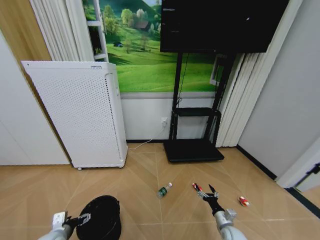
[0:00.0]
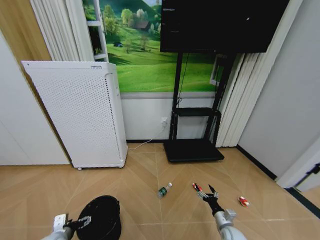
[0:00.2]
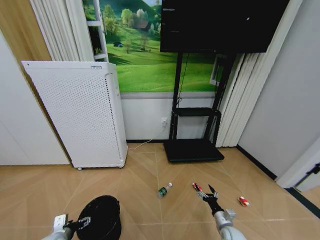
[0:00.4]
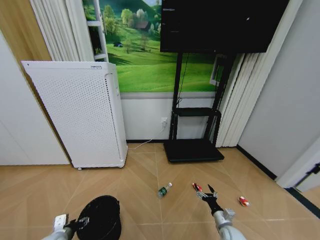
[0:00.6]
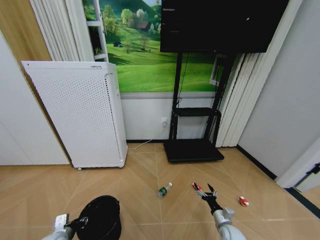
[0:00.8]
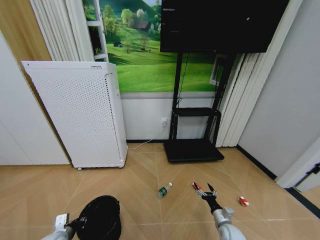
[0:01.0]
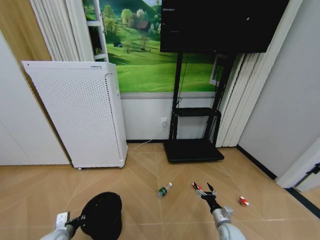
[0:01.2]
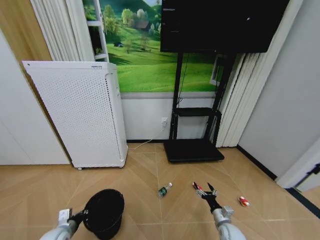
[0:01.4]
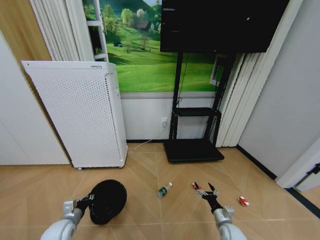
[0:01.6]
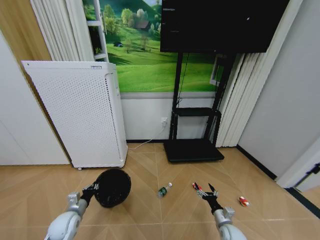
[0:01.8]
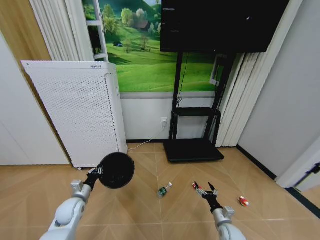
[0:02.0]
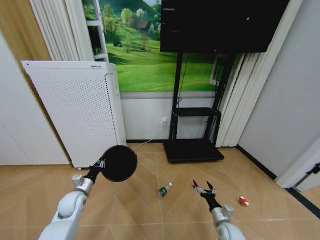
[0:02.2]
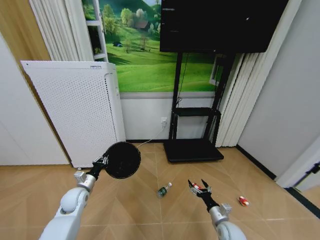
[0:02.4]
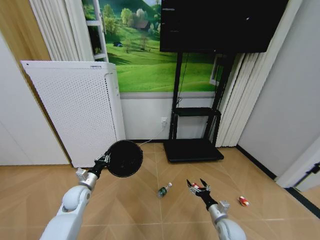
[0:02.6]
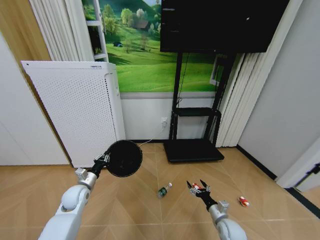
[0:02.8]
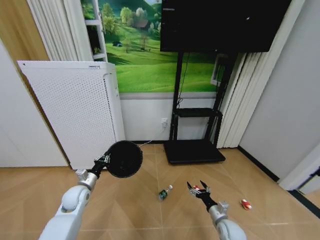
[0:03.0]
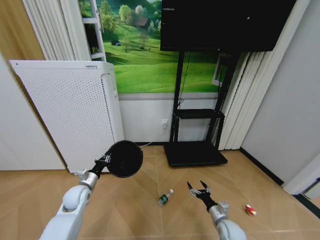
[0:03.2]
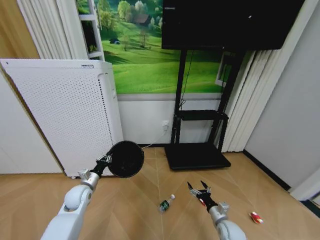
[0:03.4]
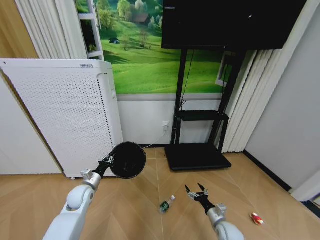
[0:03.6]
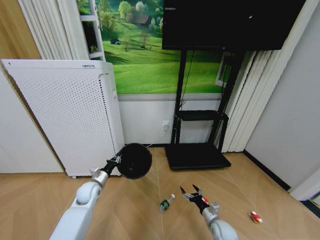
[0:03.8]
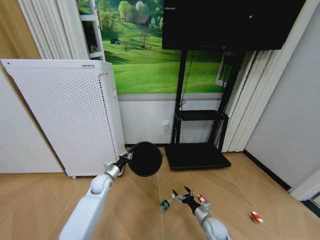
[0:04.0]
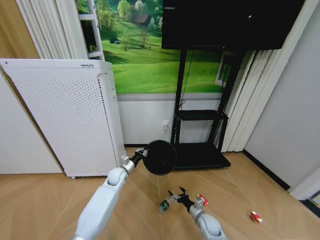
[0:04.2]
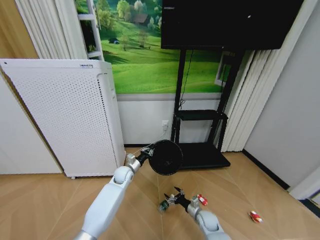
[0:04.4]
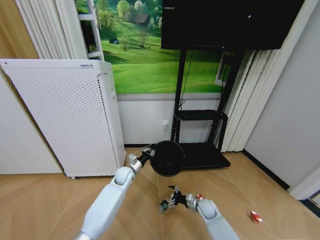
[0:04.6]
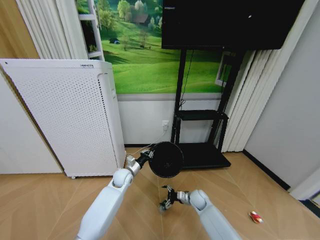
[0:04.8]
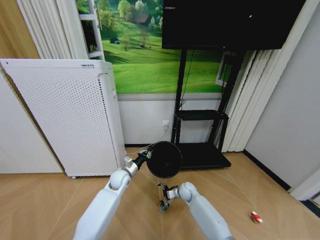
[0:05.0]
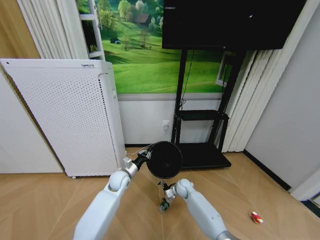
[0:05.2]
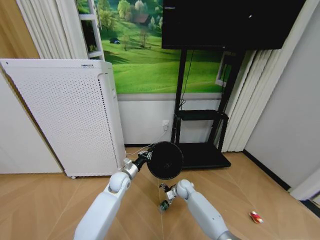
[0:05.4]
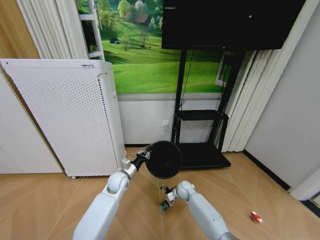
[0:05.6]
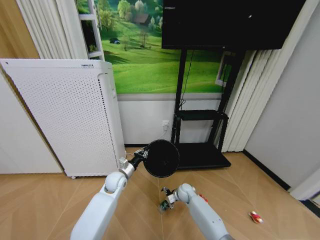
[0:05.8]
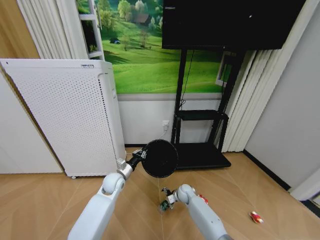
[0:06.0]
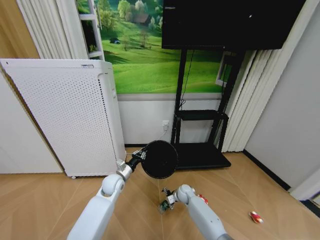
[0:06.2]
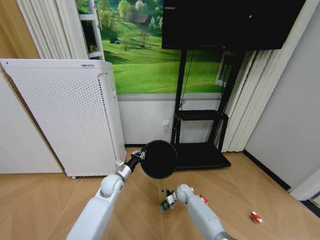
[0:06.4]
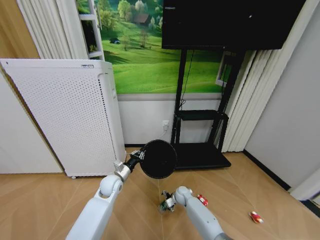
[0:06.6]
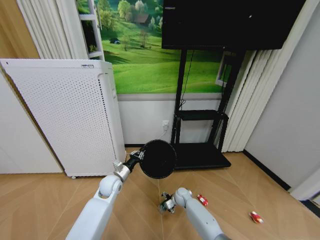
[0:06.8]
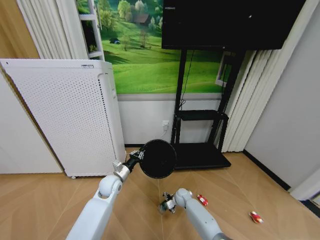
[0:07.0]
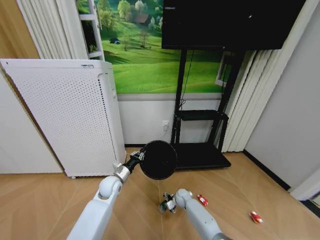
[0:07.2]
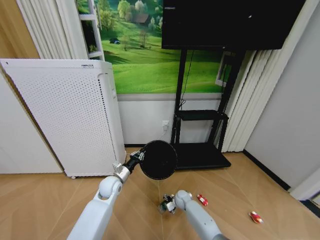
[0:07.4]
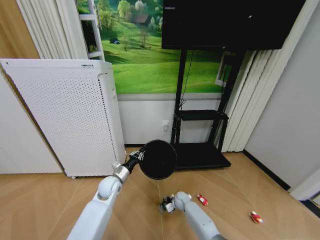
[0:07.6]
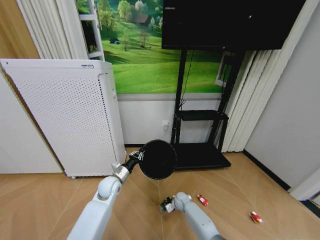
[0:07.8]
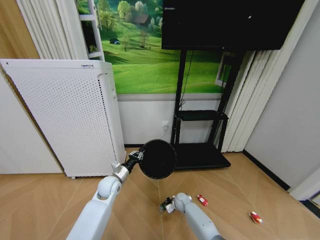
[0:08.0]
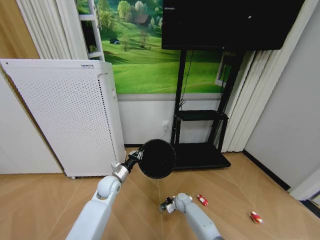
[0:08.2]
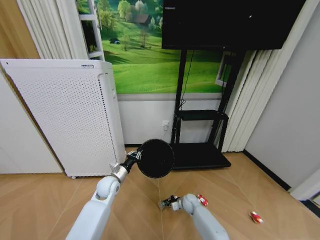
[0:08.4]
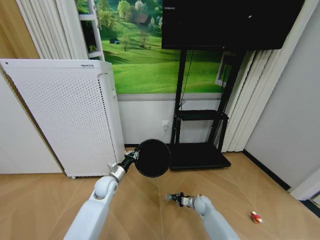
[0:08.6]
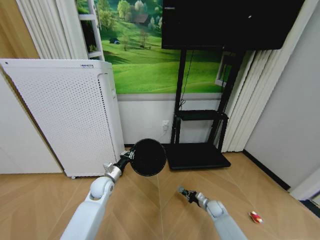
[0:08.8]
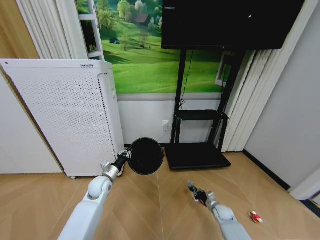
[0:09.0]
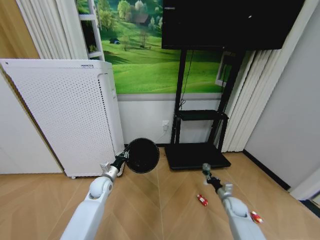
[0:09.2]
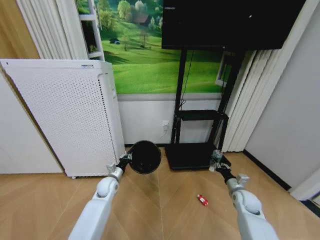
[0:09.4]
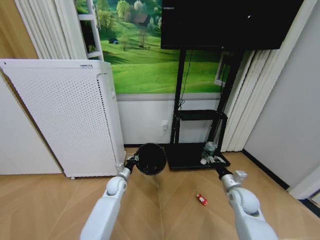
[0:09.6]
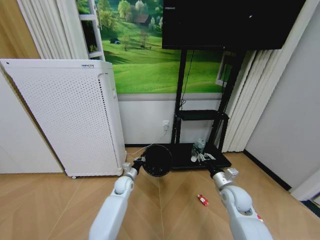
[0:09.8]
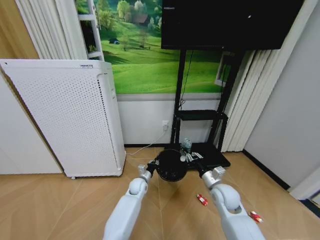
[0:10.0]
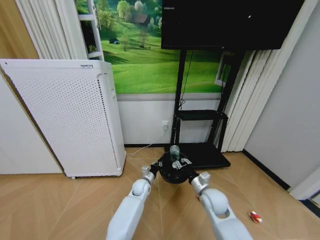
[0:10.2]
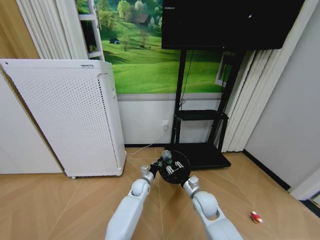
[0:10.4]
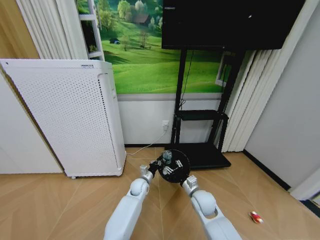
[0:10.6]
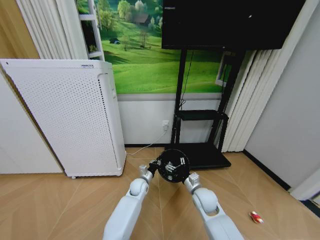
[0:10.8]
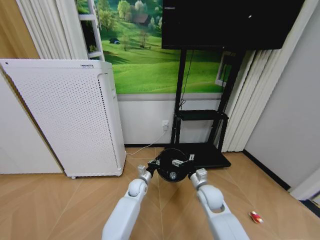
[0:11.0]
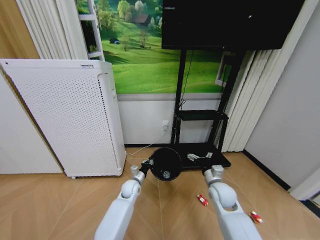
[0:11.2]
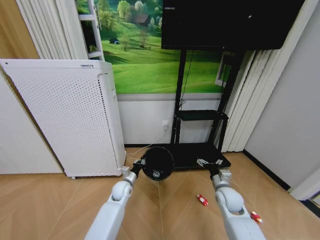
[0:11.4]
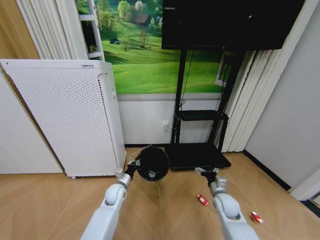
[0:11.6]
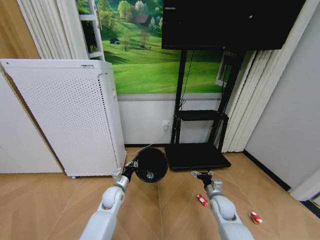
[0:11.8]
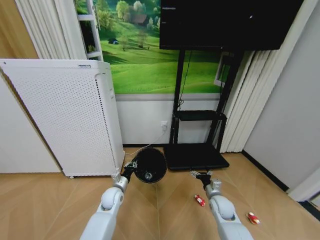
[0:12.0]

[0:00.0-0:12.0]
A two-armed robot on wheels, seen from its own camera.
Task of the whole recording: Pick up the trash bin and place the garbage on the floor into it.
0:00.0 to 0:01.6: The left gripper ends up about 5 cm from where it was, and closes.
0:01.6 to 0:03.0: The left gripper heads forward and upward, covering approximately 15 cm.
0:03.0 to 0:04.4: The right gripper travels downward, to the left and forward by about 10 cm. Meanwhile the left gripper heads to the right and forward, covering approximately 20 cm.
0:04.4 to 0:06.0: The right gripper goes about 15 cm forward and to the left; the left gripper travels backward by some 5 cm.
0:06.0 to 0:07.6: The right gripper goes approximately 5 cm downward.
0:07.6 to 0:09.0: The right gripper goes roughly 20 cm to the right, and closes.
0:09.0 to 0:10.4: The right gripper is displaced upward and to the left by some 25 cm. The left gripper travels to the right and downward by approximately 20 cm.
0:10.4 to 0:12.0: The left gripper heads to the left and backward, covering roughly 15 cm, while the right gripper is displaced to the right and downward by approximately 10 cm, and opens.

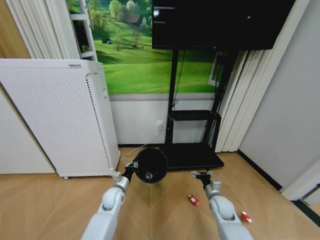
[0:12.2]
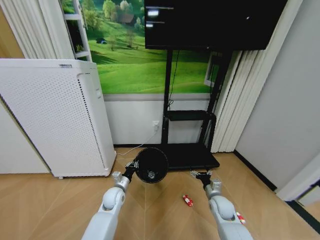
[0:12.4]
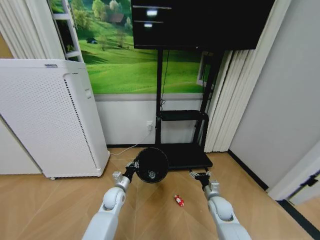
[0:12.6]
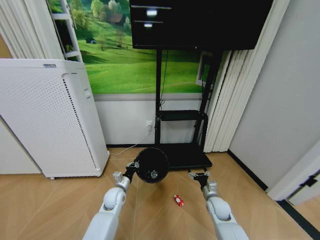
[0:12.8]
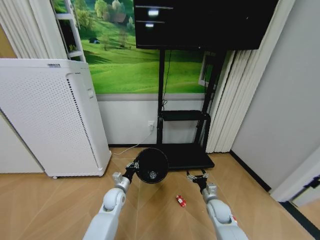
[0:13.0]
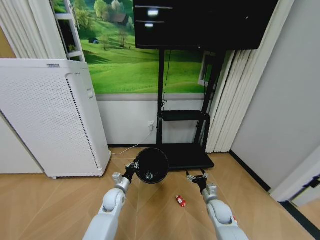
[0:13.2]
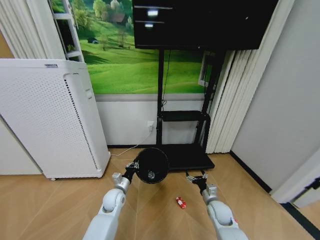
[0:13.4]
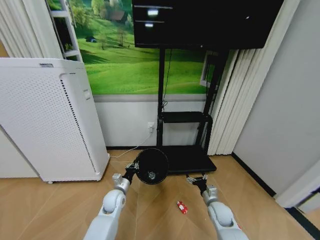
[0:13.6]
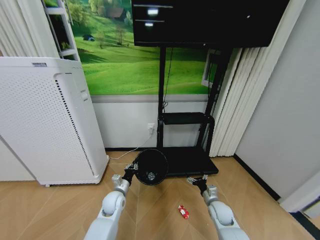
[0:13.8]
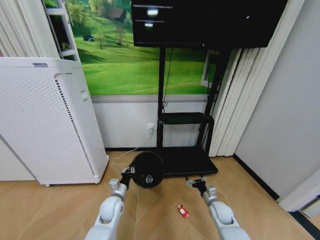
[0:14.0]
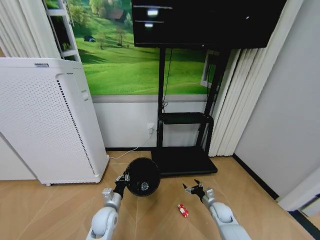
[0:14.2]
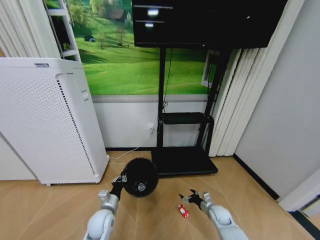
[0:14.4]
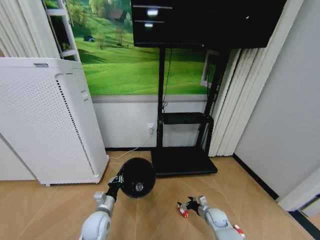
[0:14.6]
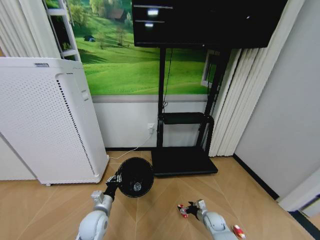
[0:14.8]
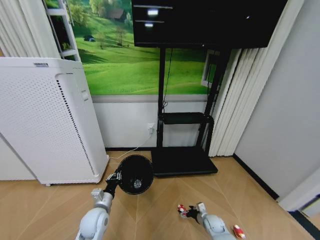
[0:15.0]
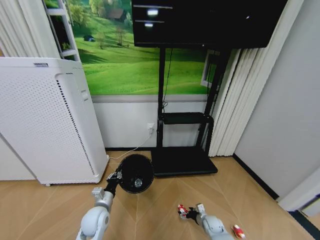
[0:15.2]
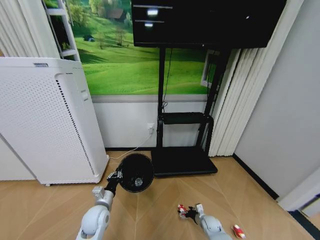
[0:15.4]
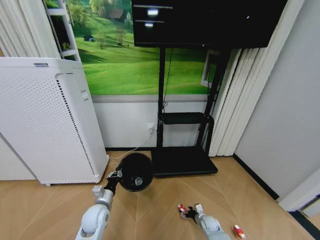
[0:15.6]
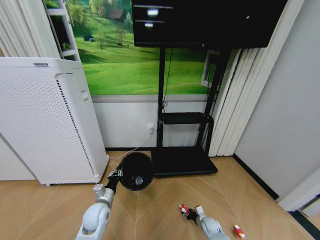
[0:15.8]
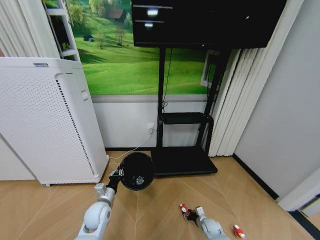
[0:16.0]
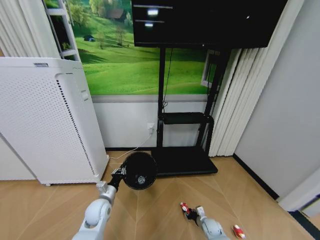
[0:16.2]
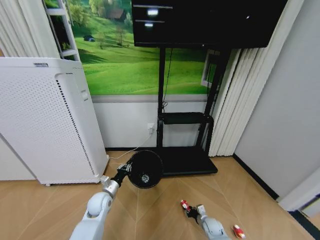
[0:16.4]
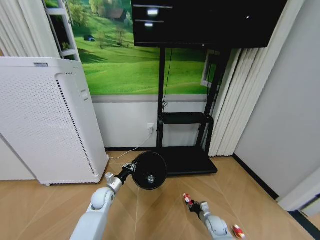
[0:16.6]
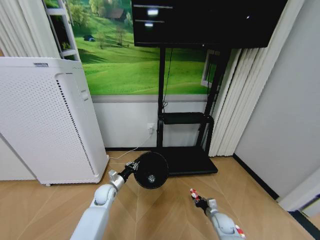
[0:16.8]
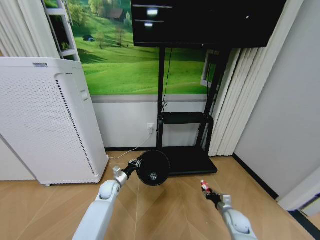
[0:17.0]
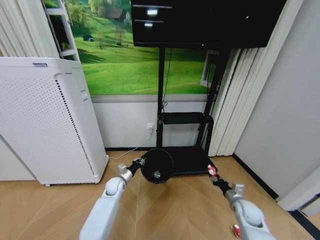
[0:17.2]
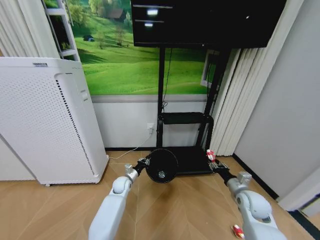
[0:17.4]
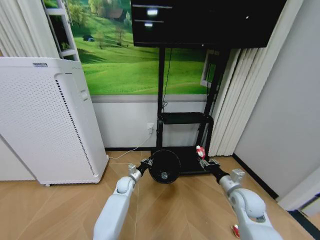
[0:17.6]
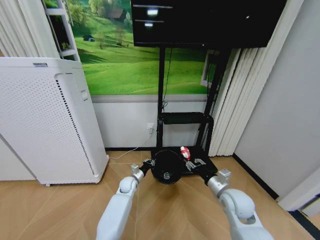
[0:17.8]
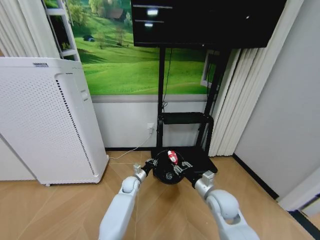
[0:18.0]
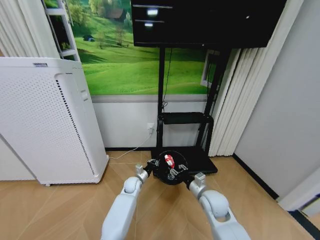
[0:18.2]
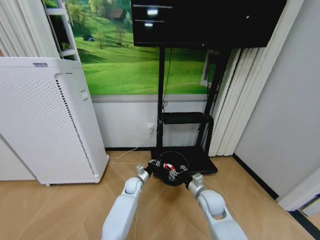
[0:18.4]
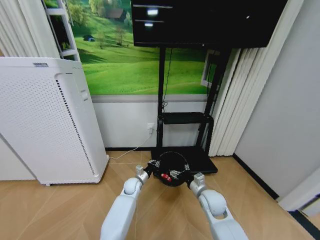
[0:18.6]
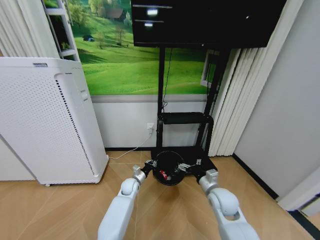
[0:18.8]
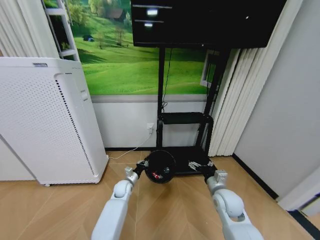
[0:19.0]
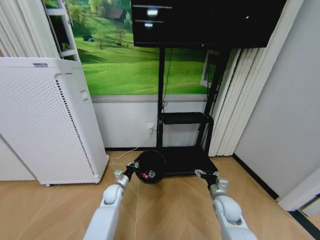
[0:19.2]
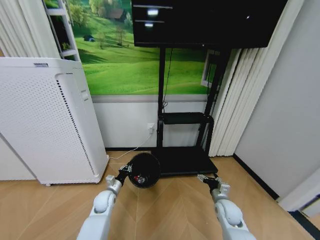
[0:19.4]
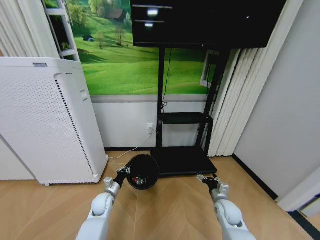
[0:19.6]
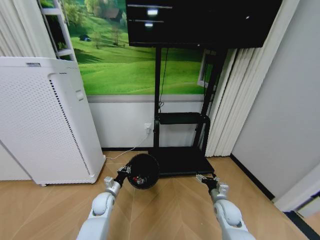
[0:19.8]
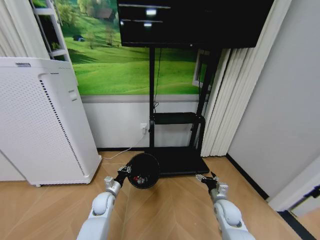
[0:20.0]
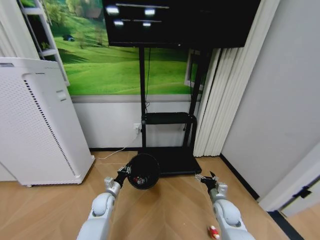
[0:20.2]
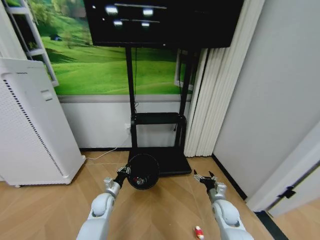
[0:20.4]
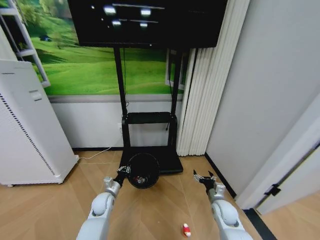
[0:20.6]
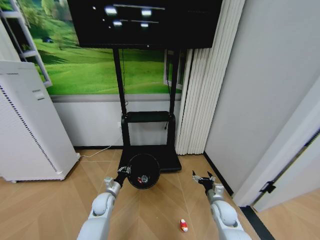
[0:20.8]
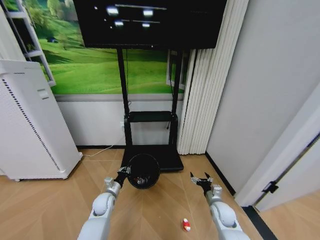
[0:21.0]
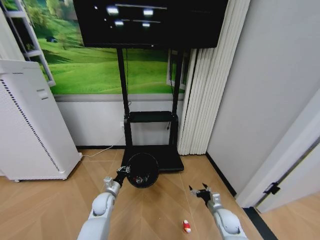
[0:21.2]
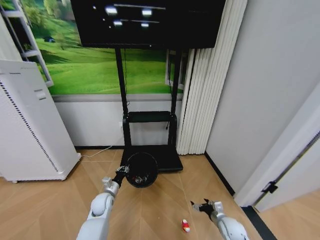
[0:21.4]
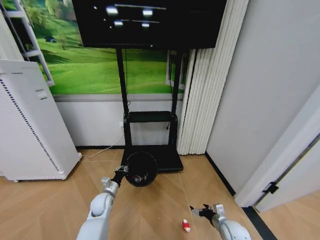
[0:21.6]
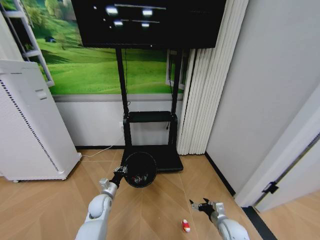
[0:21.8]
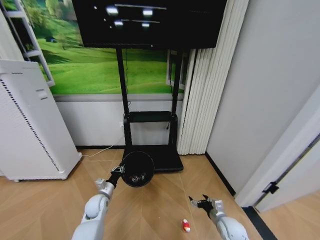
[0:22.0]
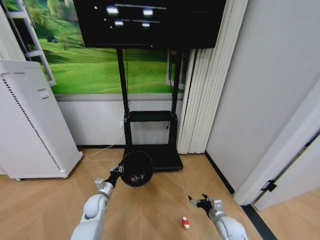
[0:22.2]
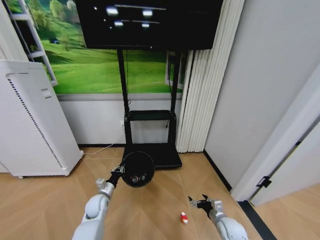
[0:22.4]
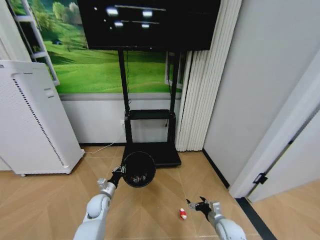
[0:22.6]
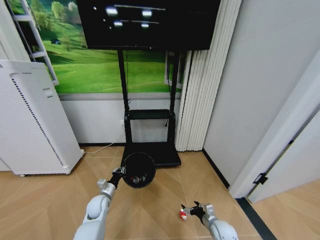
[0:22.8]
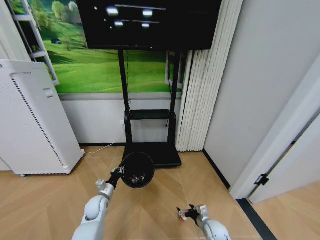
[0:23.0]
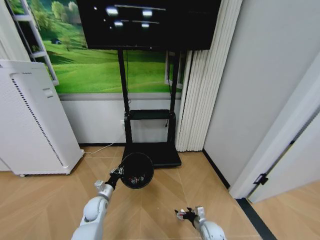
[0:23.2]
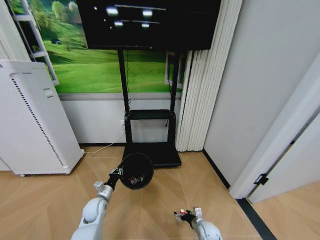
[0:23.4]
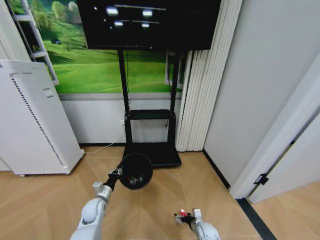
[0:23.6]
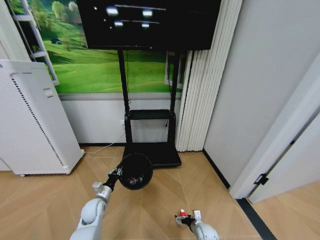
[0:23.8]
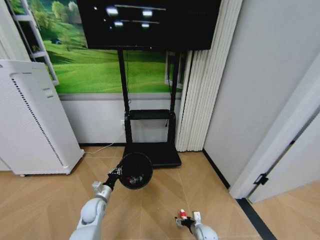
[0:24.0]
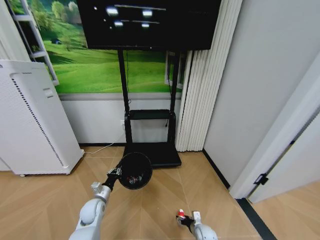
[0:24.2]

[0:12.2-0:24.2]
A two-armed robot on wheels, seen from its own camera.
Task of the whole recording: Pick up the trash bin and place the garbage on the floor into it.
0:13.8 to 0:15.2: The right gripper moves downward, about 15 cm; the left gripper goes some 10 cm backward and to the left.
0:15.2 to 0:16.6: The right gripper closes its fingers. The left gripper is displaced forward by approximately 5 cm.
0:16.6 to 0:18.2: The left gripper shifts some 15 cm to the right and forward. Meanwhile the right gripper moves upward, approximately 25 cm.
0:18.2 to 0:19.8: The left gripper is displaced to the left and backward by approximately 15 cm. Meanwhile the right gripper travels to the right and downward by about 15 cm, and opens.
0:19.8 to 0:21.2: The right gripper travels downward by approximately 5 cm.
0:22.6 to 0:24.2: The right gripper goes roughly 15 cm downward and to the left.
